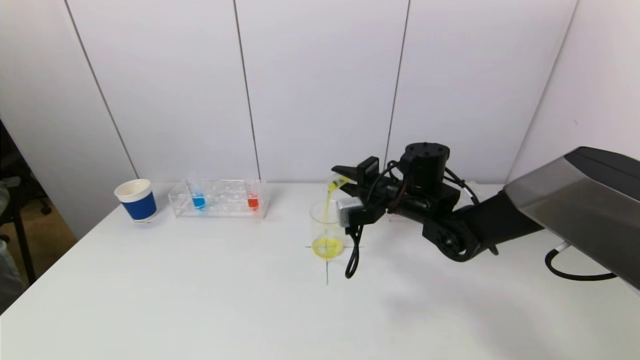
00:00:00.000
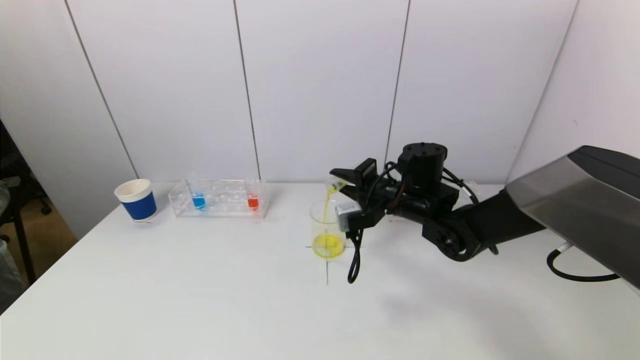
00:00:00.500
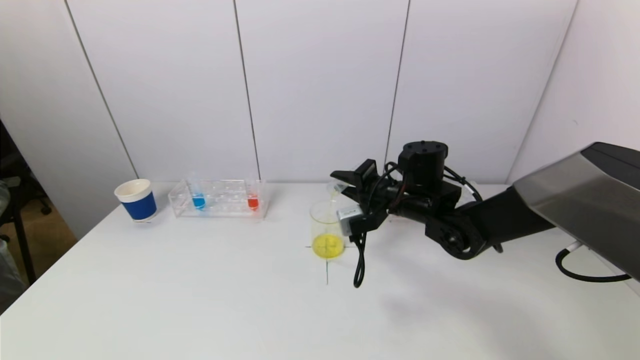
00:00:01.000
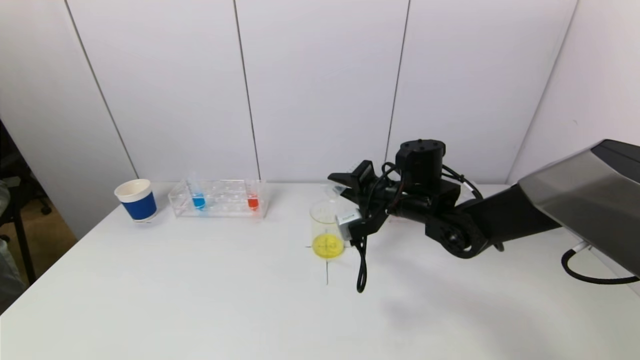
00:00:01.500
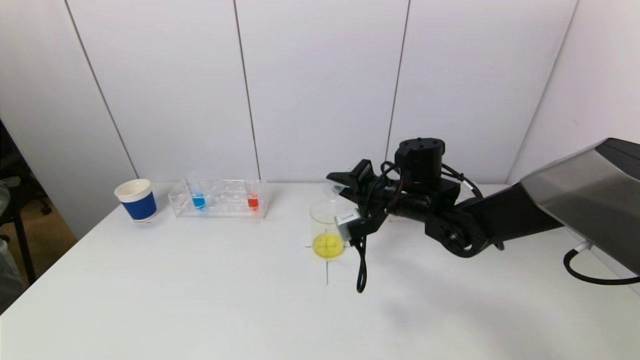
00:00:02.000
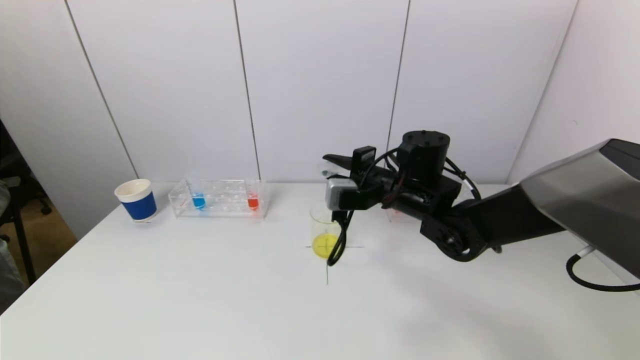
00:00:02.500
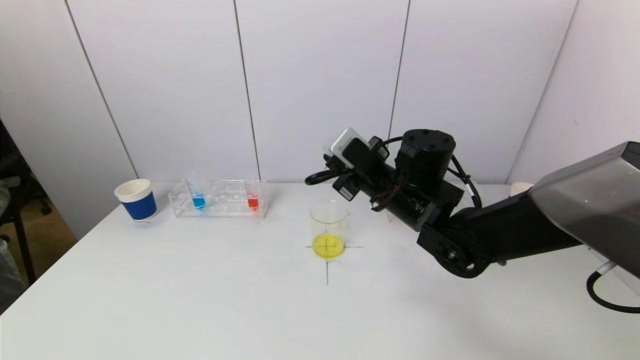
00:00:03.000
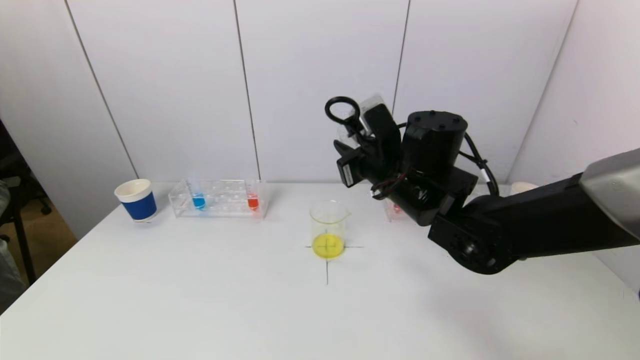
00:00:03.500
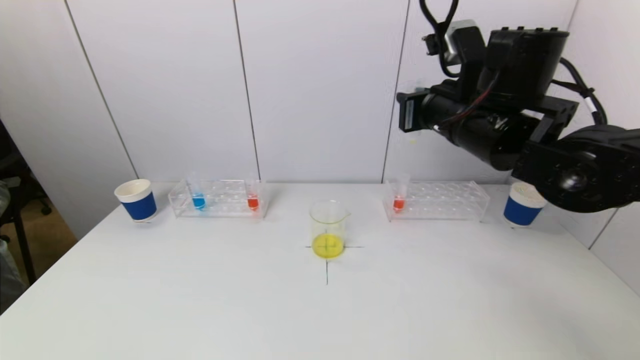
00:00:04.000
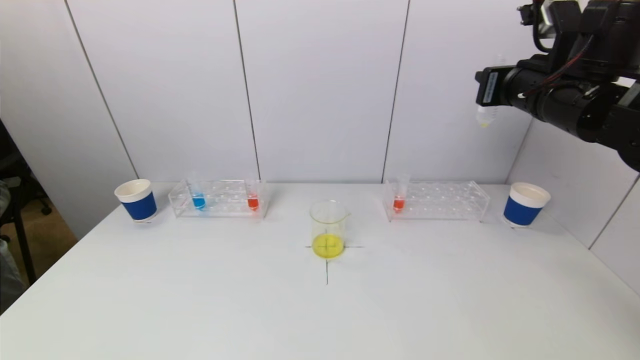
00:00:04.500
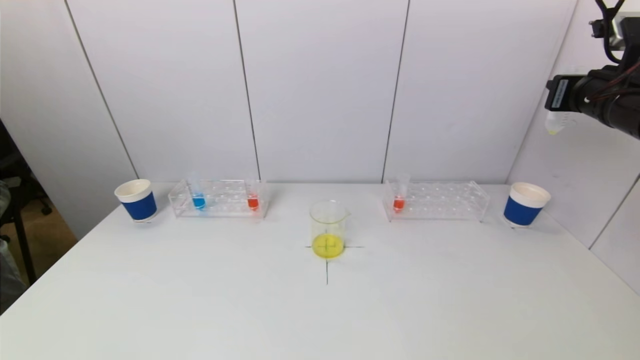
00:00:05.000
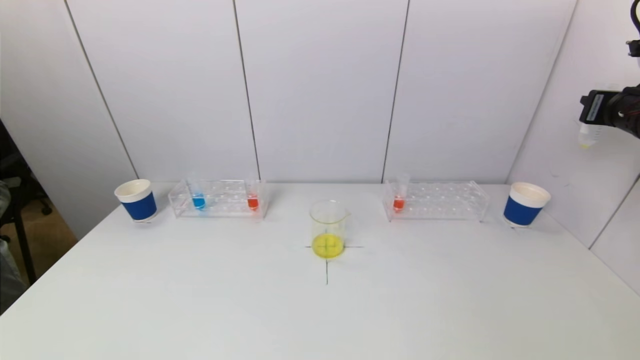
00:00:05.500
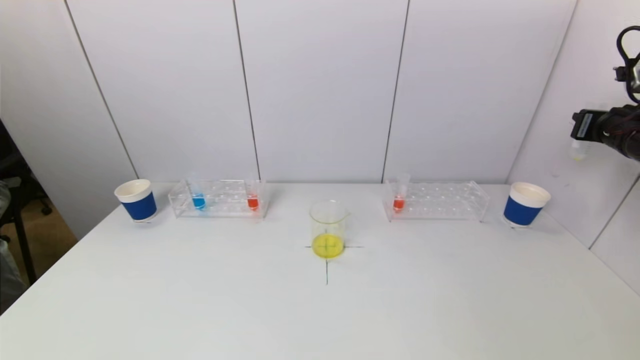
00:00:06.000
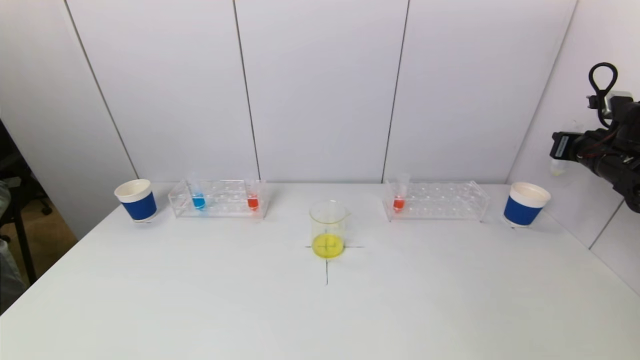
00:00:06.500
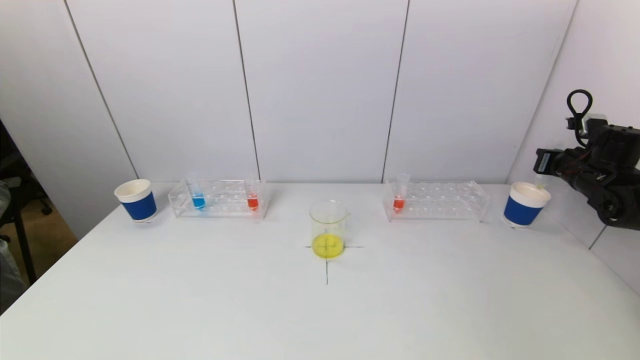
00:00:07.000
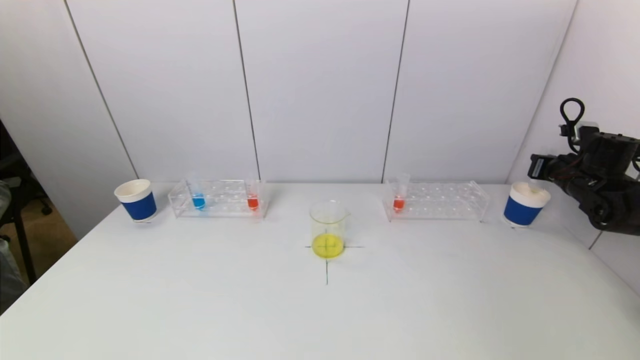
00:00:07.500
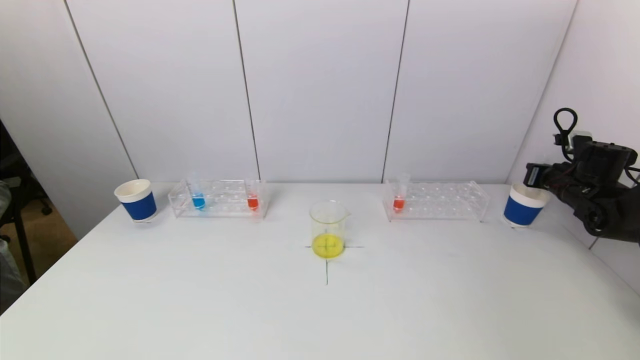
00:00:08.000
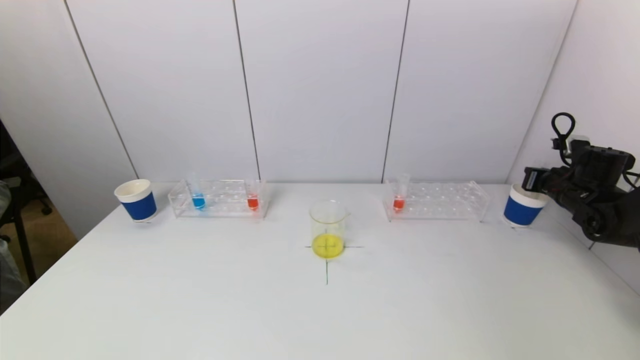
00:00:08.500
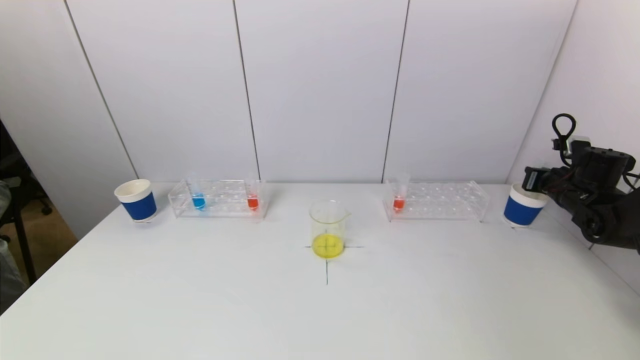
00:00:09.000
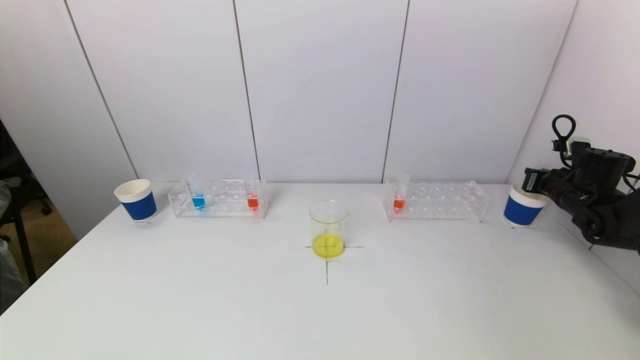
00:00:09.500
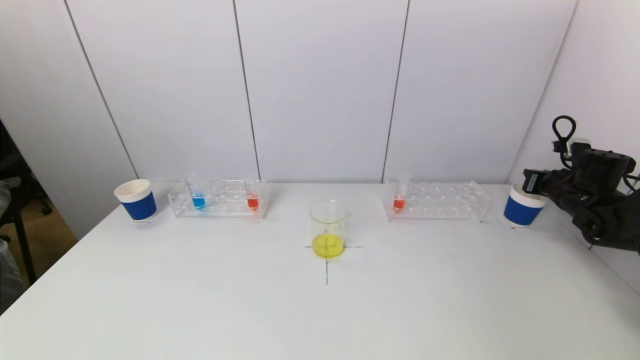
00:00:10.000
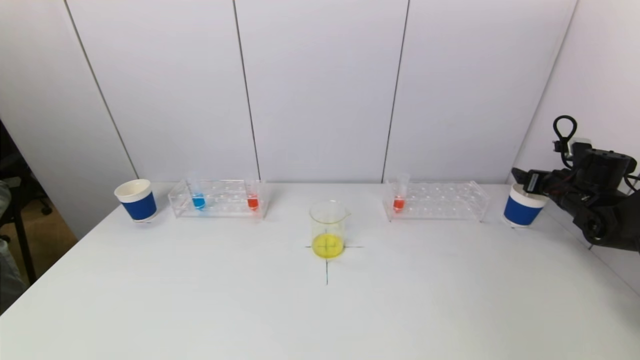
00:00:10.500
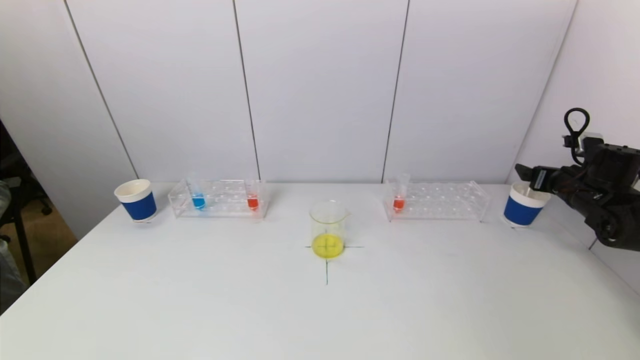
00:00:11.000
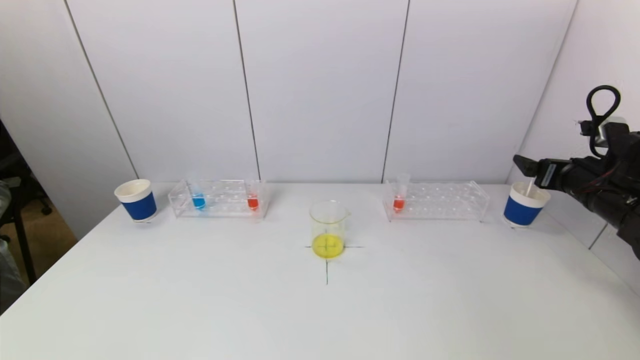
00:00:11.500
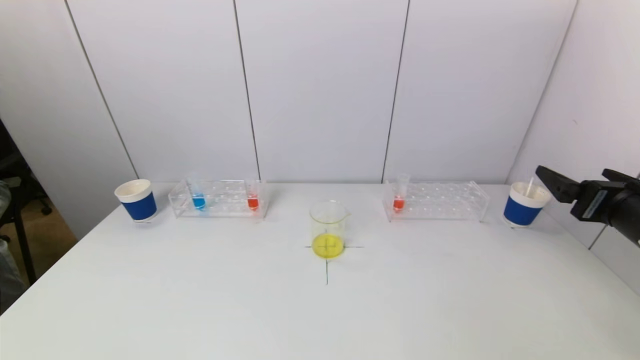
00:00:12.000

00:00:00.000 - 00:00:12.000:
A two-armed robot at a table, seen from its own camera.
Task of the whole recording: pick up a test tube with pigment on left test tube rack and a test tube with pigment on right test tube rack by grippers and pour them into the beaker.
Step, 00:00:02.000 - 00:00:10.000: Place the test tube into the paper cup with the right gripper.
00:00:00.000 - 00:00:02.000: The grippers make only small movements.
00:00:02.000 - 00:00:04.000: The right gripper heads upward, covering roughly 15 cm.
00:00:04.000 - 00:00:06.000: The right gripper goes approximately 30 cm to the right.
00:00:06.000 - 00:00:08.000: The right gripper travels downward and forward by approximately 15 cm.
00:00:08.000 - 00:00:10.000: Neither gripper changes place.
00:00:10.000 - 00:00:12.000: The right gripper goes roughly 25 cm backward, to the left and upward, and opens up.

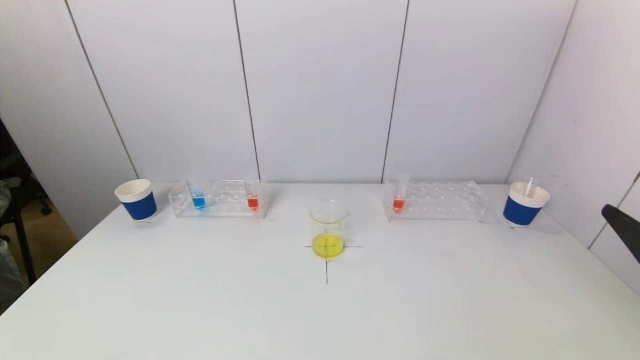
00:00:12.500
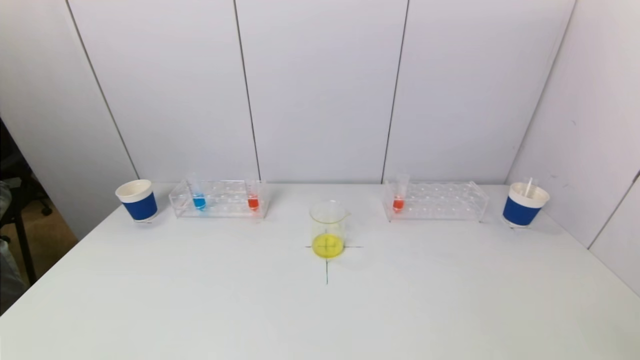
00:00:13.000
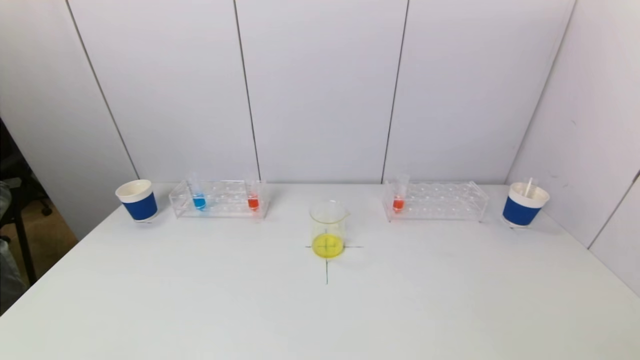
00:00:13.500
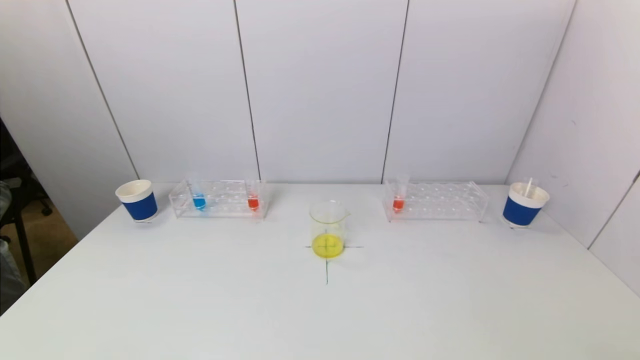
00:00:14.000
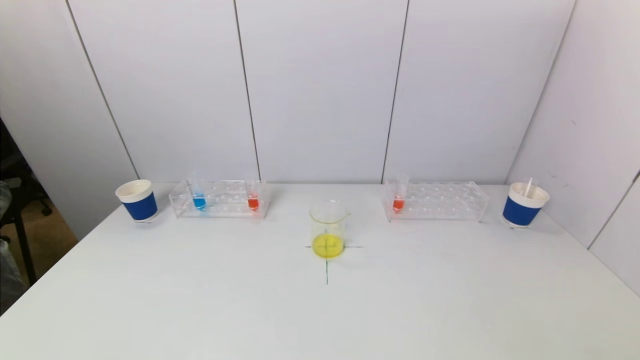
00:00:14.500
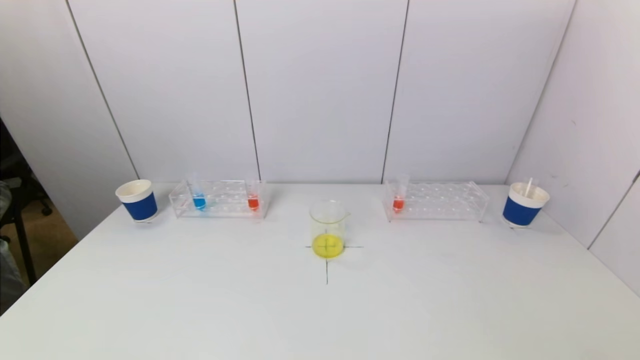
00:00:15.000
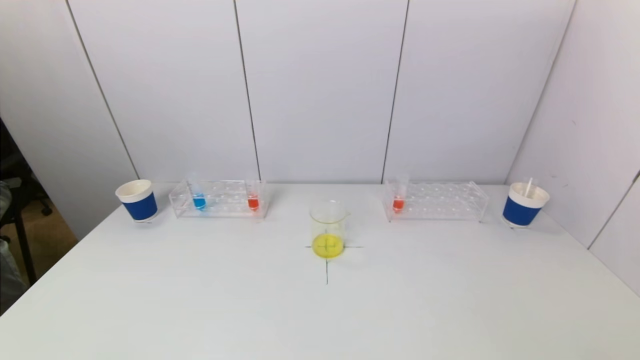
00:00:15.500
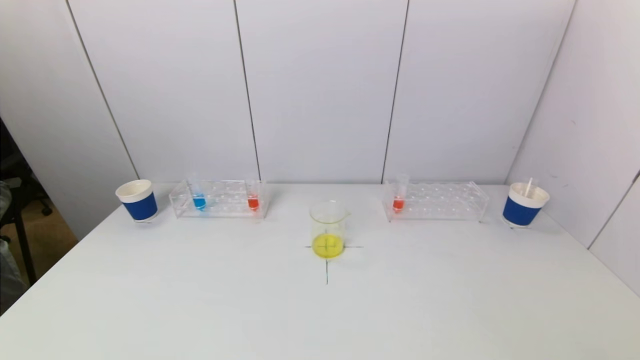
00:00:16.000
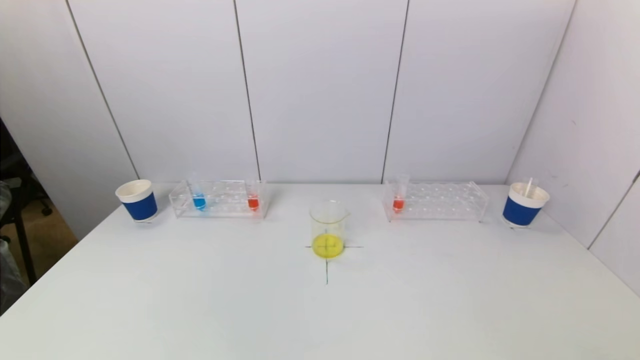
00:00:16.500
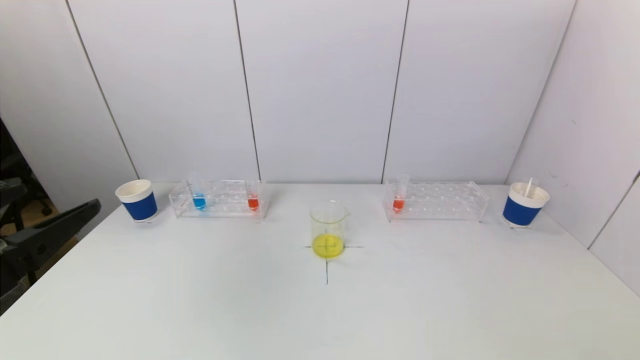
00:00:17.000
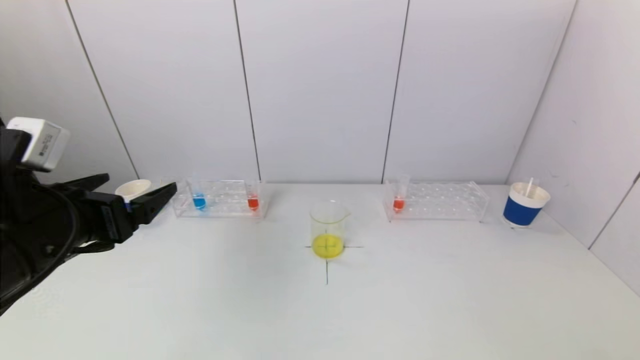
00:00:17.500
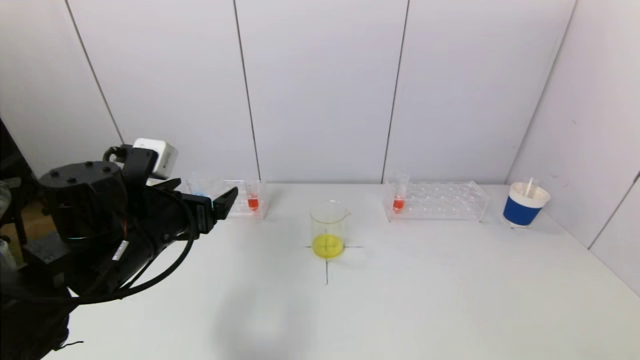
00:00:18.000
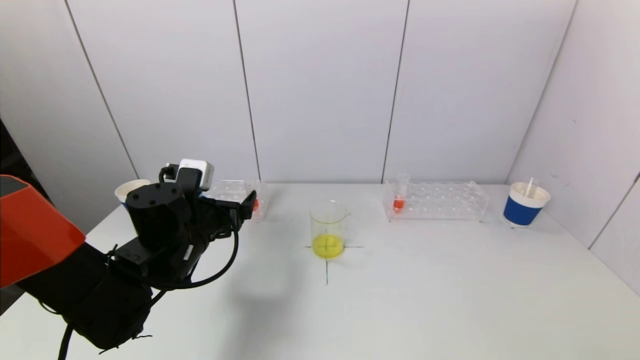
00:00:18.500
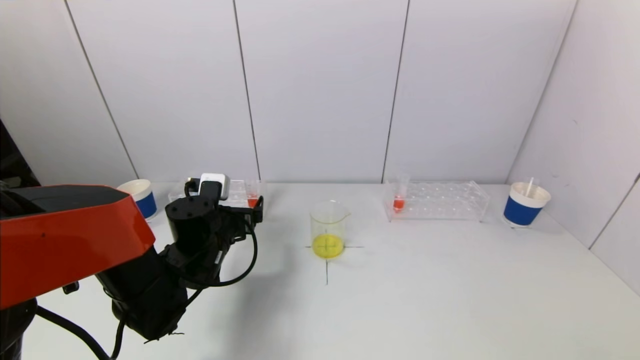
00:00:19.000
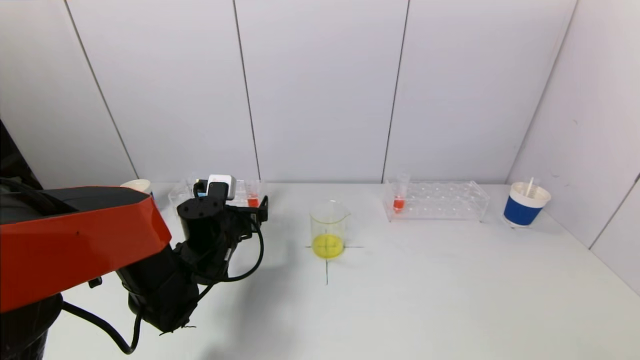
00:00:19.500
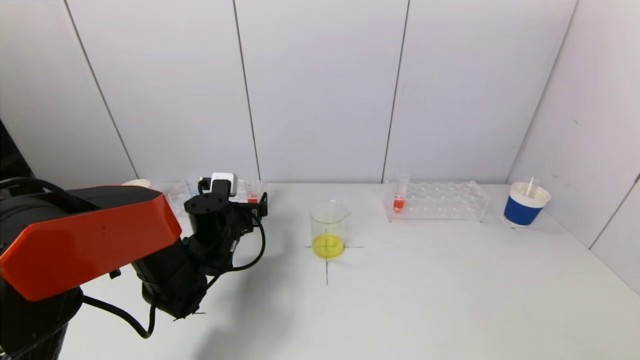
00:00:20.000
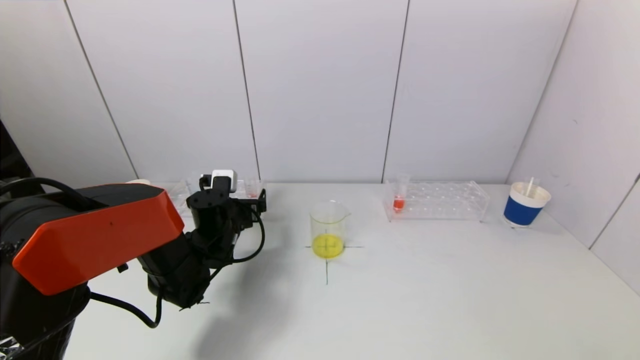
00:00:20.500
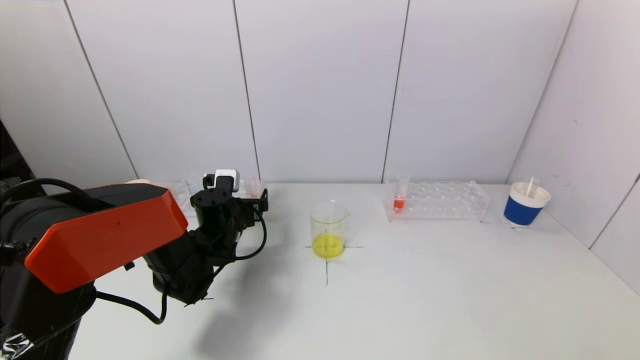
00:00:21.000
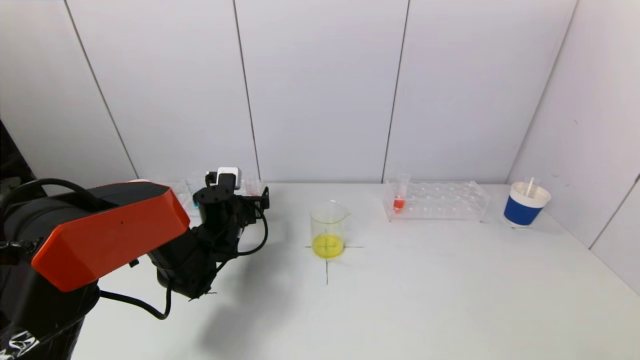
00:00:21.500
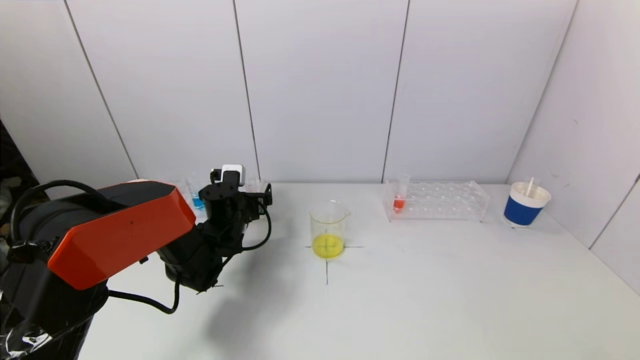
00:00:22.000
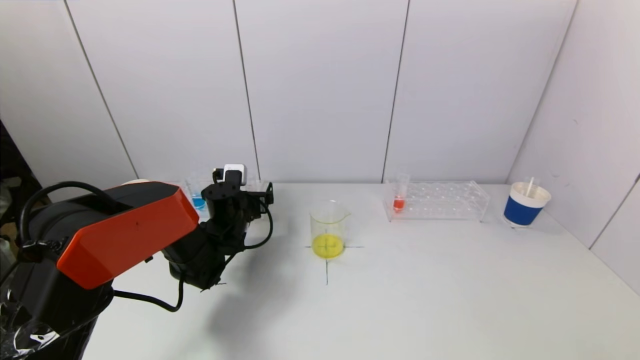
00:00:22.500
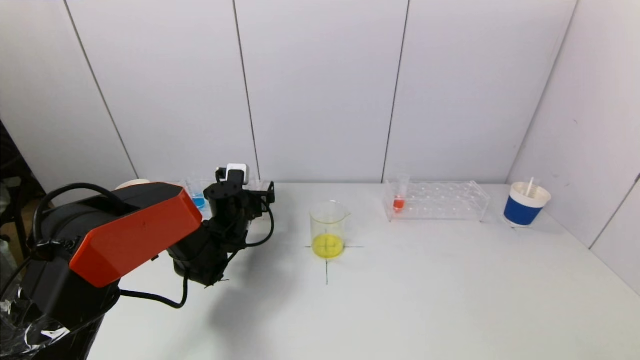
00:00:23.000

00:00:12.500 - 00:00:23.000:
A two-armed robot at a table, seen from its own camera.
Task of the whole recording: pick up a test tube with pigment on left test tube rack and a test tube with pigment on right test tube rack by grippers and pour them into the beaker.
00:00:12.500 - 00:00:14.500: The right gripper heads backward and downward, covering about 15 cm.
00:00:16.500 - 00:00:19.000: The left gripper heads forward, downward and to the right, covering approximately 35 cm.
00:00:19.000 - 00:00:21.000: The left gripper heads forward, covering approximately 5 cm.
00:00:21.000 - 00:00:23.000: The grippers make only small movements.
